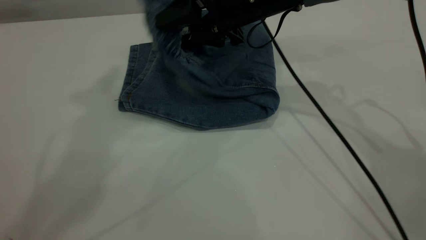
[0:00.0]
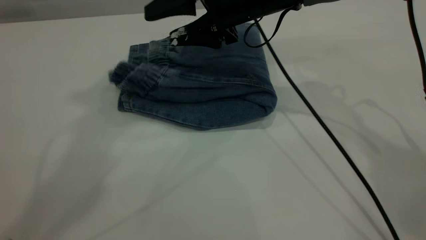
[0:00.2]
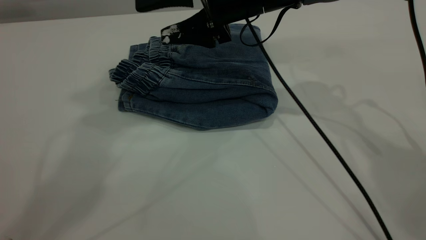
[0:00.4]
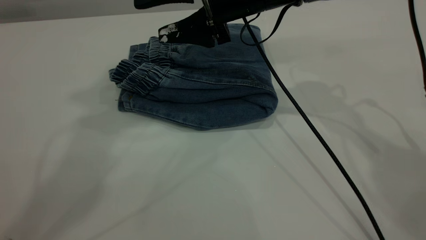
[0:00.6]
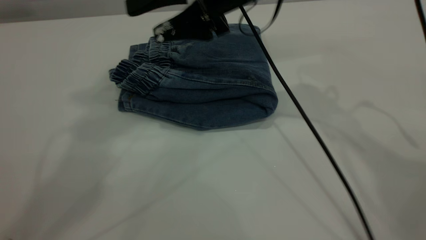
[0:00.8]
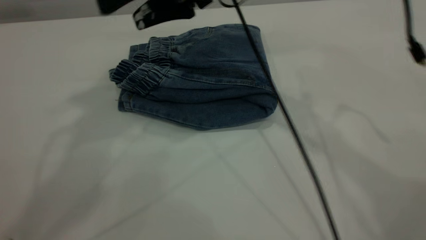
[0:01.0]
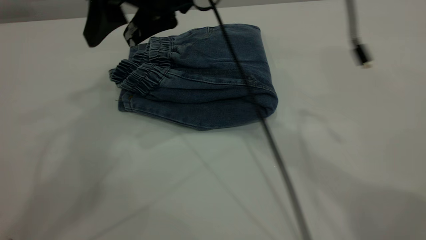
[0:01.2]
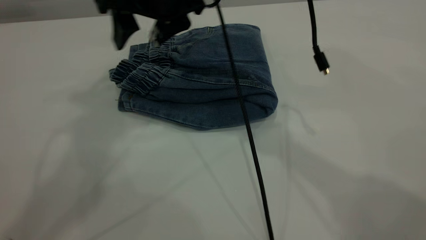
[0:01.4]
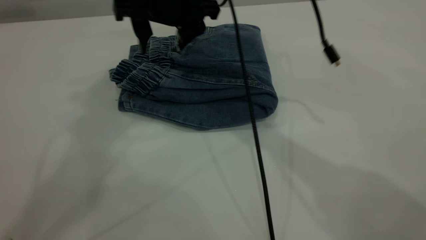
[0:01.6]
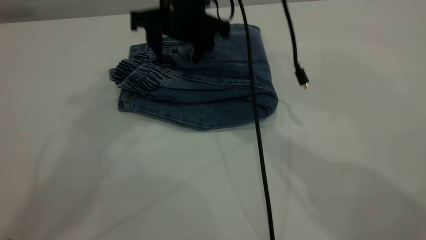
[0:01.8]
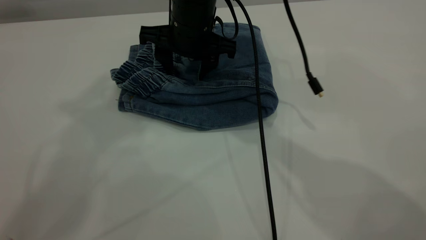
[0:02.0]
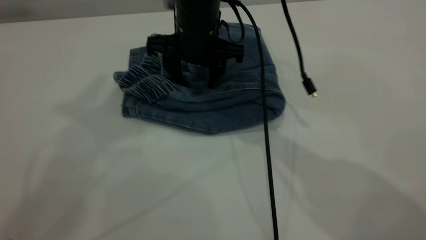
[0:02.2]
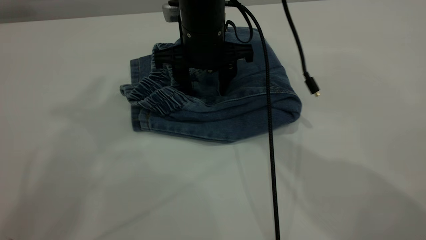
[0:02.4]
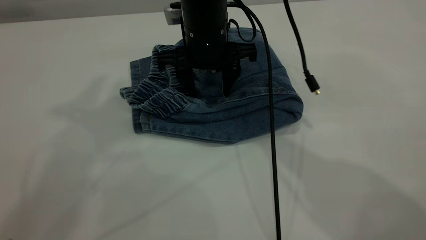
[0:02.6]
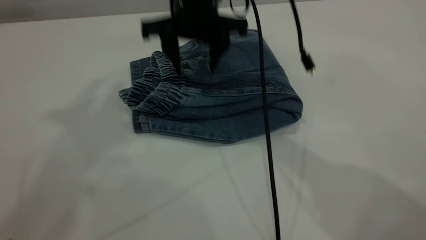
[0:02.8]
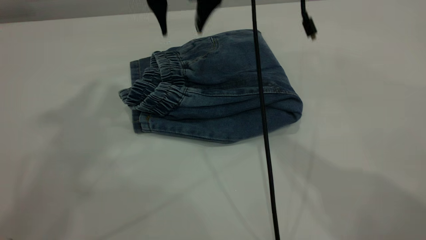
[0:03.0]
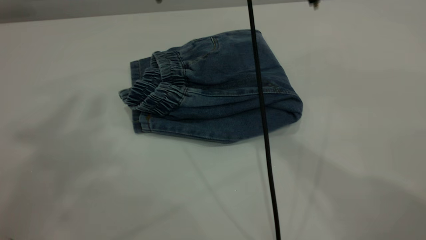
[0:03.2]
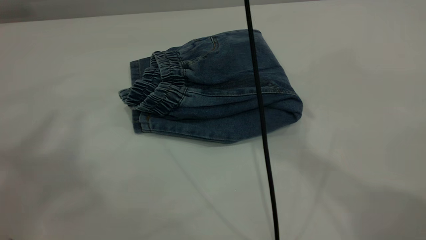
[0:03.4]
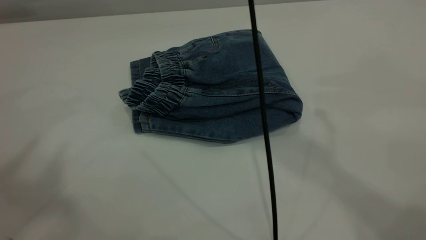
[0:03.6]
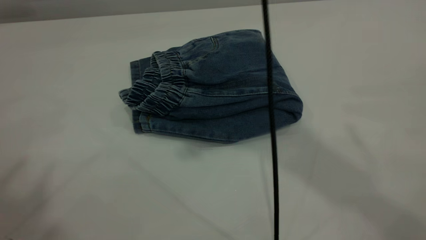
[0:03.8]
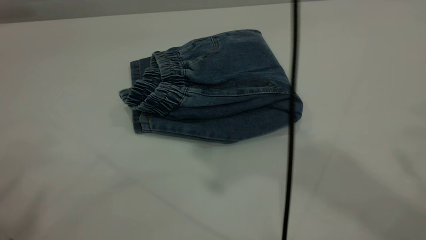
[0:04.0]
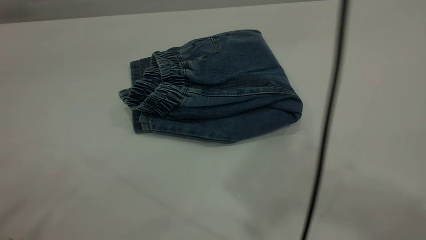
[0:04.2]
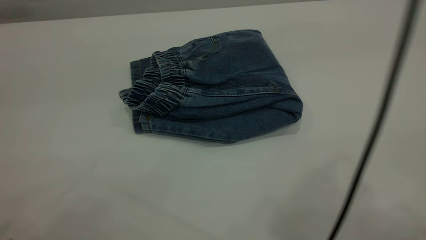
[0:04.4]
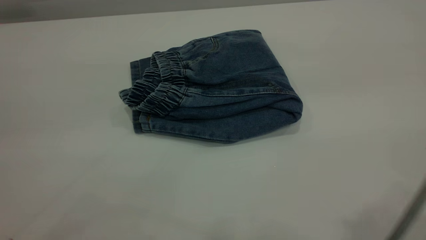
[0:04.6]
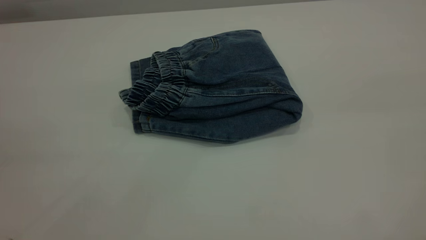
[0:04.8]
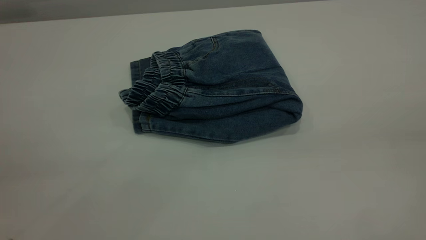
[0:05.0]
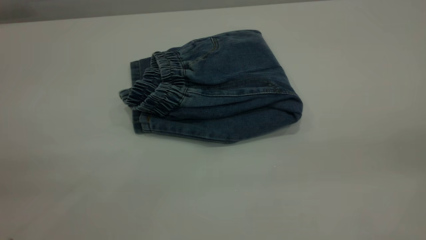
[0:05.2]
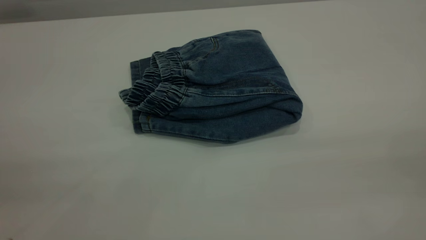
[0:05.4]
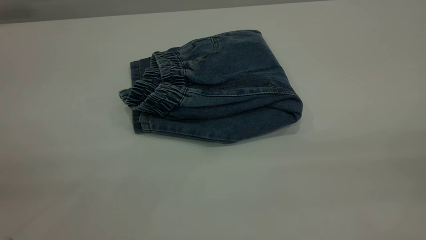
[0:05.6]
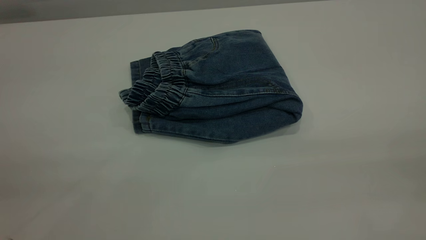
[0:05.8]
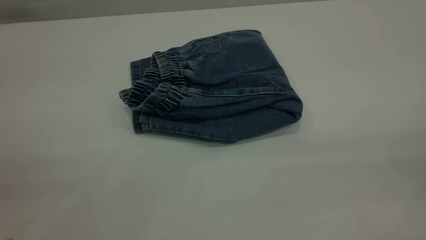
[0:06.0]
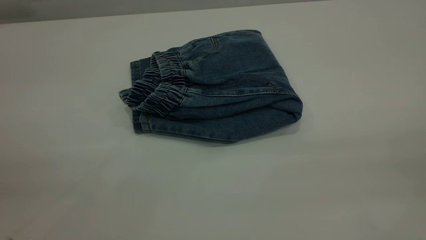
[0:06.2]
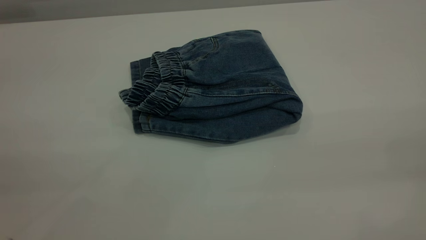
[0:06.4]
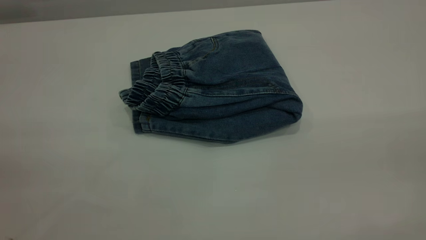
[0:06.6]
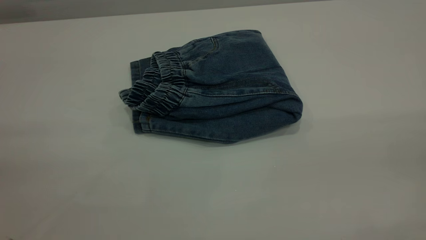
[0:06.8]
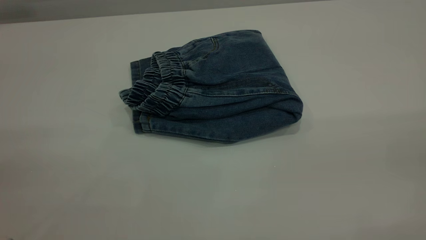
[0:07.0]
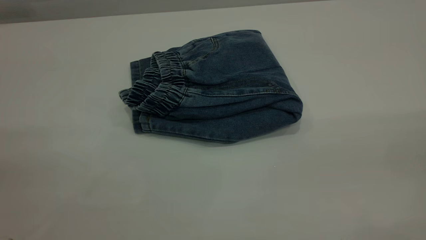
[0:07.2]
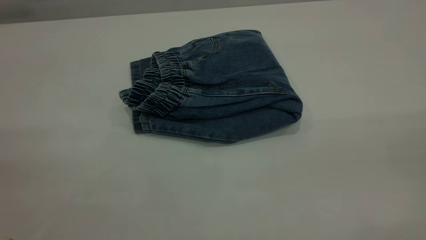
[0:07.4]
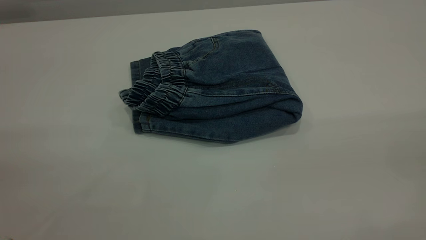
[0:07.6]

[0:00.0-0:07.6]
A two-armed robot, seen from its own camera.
0:00.0 to 0:01.6: The right gripper moves to the left, approximately 10 cm.
0:01.6 to 0:03.0: The left gripper changes place by approximately 5 cm. The right gripper heads upward, covering approximately 10 cm.
0:03.0 to 0:04.6: The right gripper is displaced backward, to the right and upward by about 40 cm. The left gripper goes roughly 25 cm backward, downward and to the left.
0:04.6 to 0:06.0: The right gripper moves downward, backward and to the right, approximately 20 cm.
